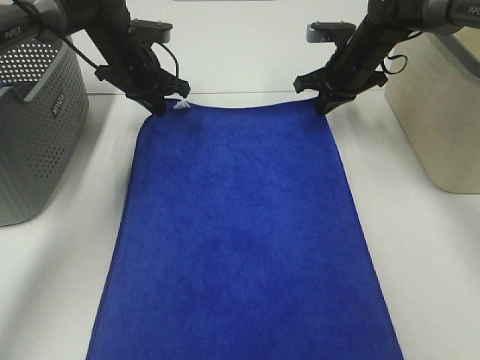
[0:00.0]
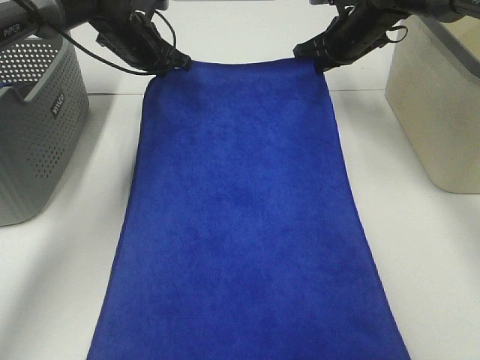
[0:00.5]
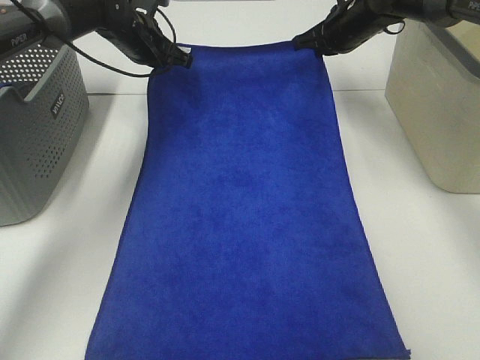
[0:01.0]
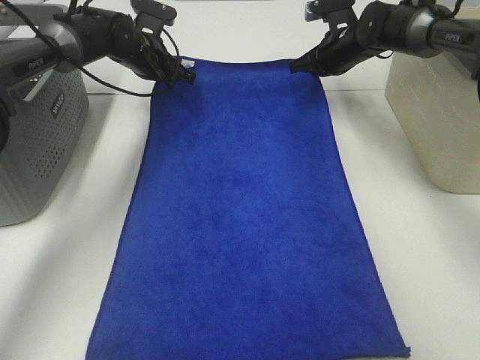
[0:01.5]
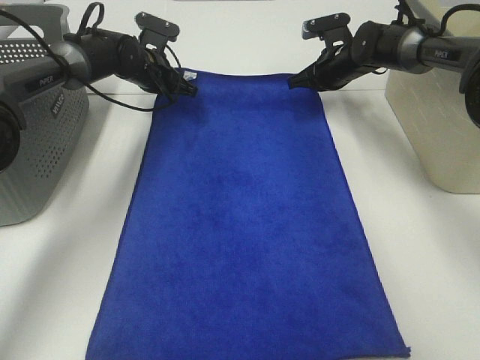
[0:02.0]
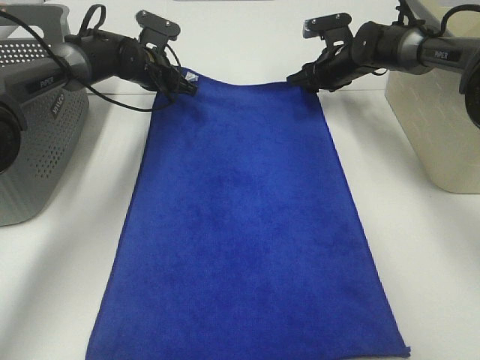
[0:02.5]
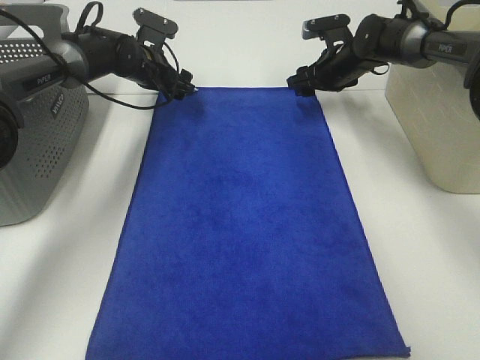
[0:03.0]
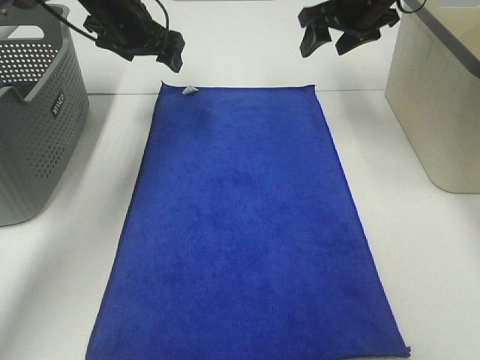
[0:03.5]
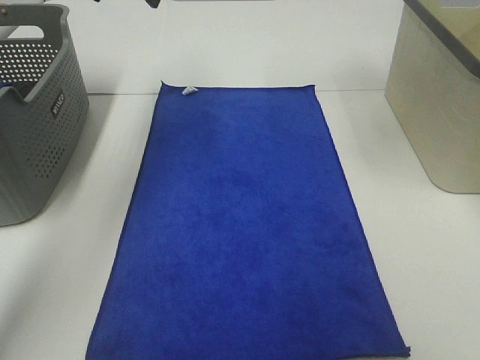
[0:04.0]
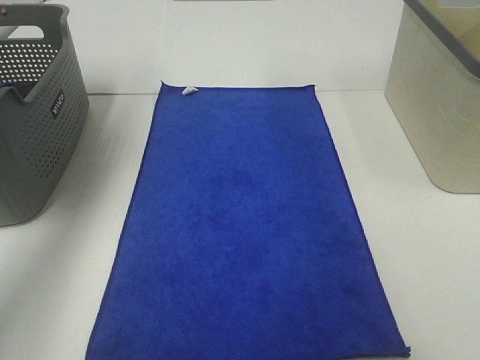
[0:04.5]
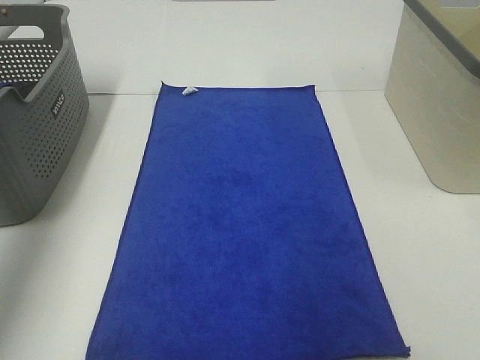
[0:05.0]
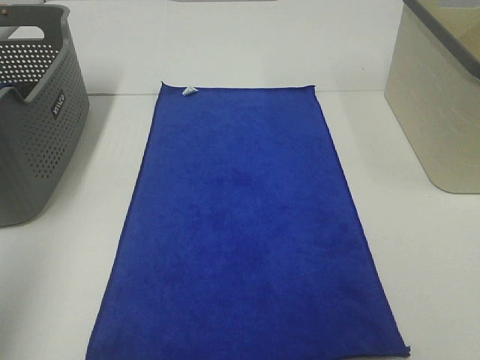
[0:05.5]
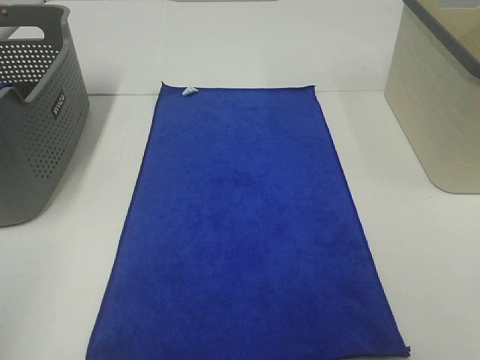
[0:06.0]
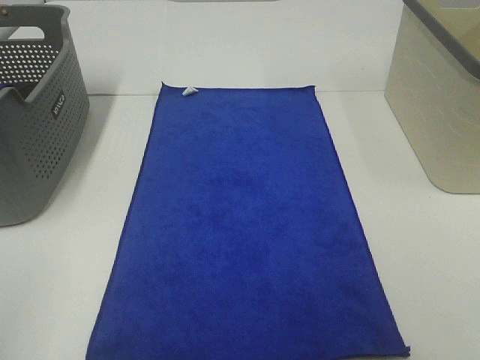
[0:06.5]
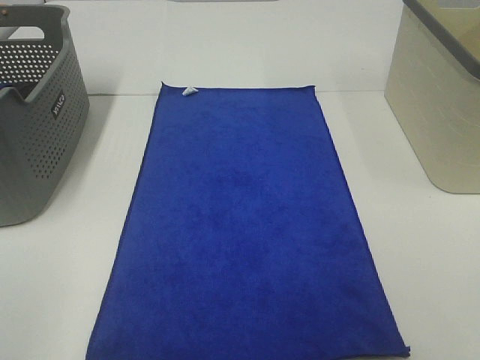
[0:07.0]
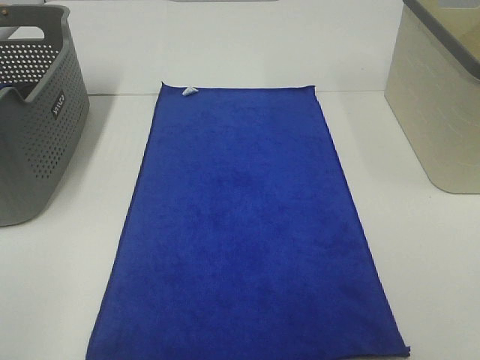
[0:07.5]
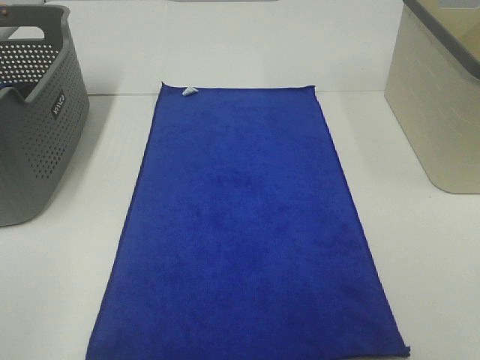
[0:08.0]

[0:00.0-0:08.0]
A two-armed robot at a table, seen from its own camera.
Task of the whole recording: Remove the towel and place it.
0:00.0 to 0:02.0: The right gripper shifts by some 5 cm. The left gripper shifts some 5 cm downward.
0:02.0 to 0:04.0: Both grippers move upward and backward, about 30 cm. The right gripper opens; the left gripper opens its fingers.
0:04.0 to 0:06.0: The left gripper travels backward by approximately 40 cm.
